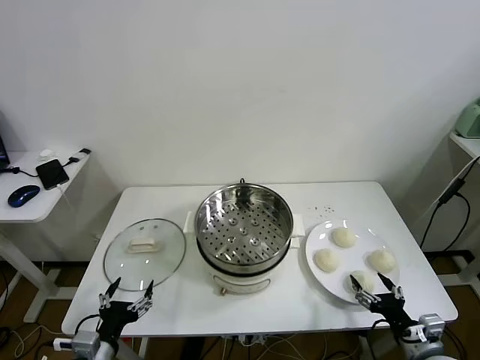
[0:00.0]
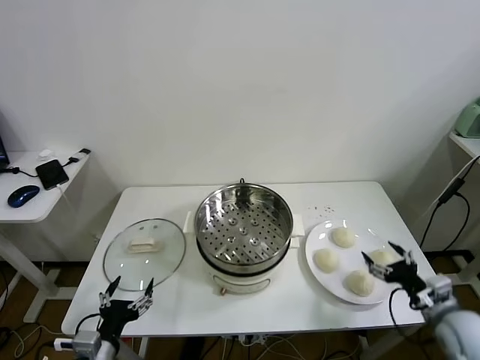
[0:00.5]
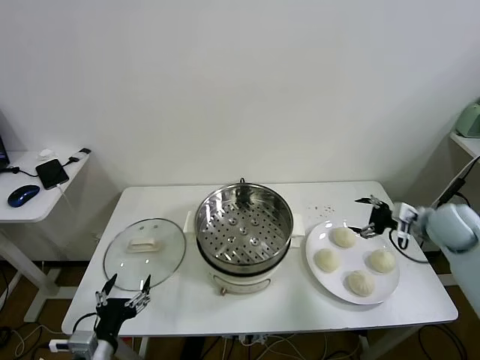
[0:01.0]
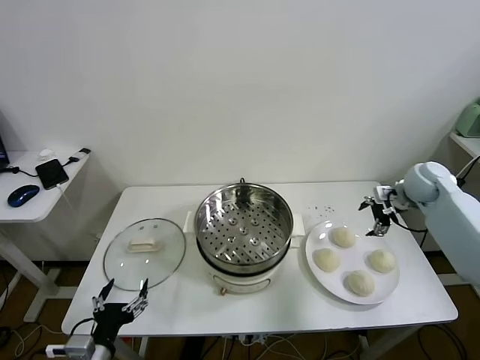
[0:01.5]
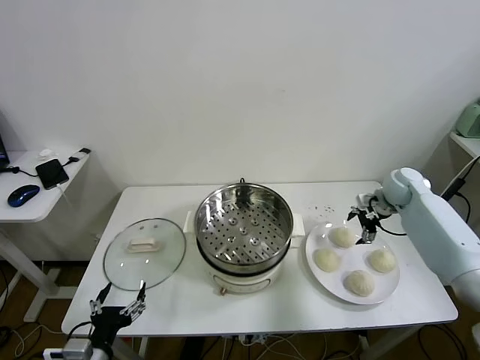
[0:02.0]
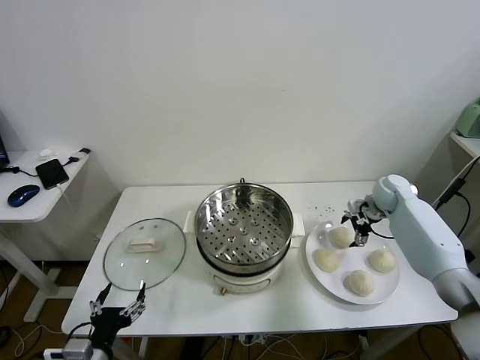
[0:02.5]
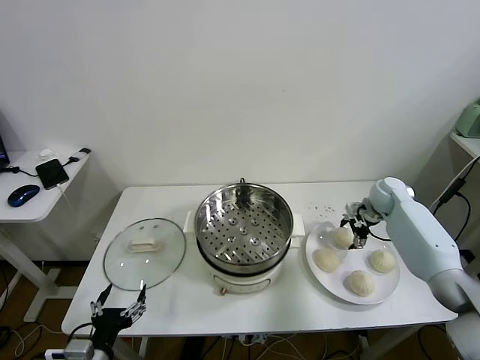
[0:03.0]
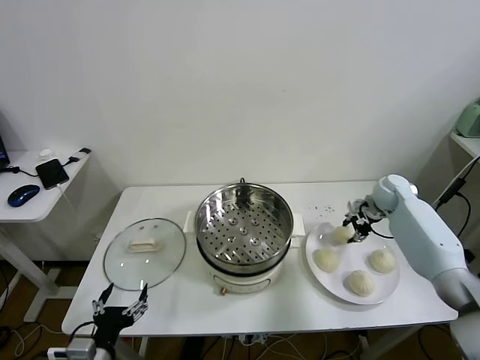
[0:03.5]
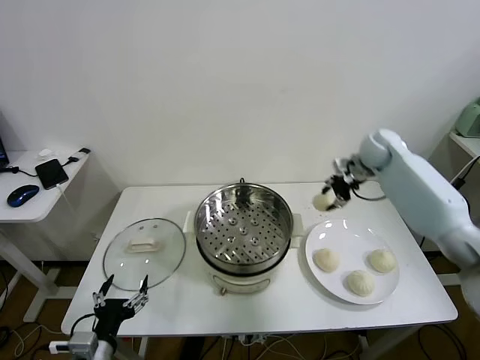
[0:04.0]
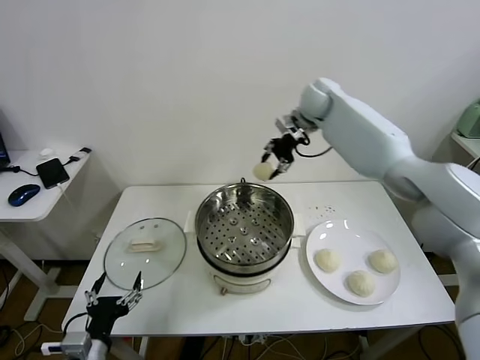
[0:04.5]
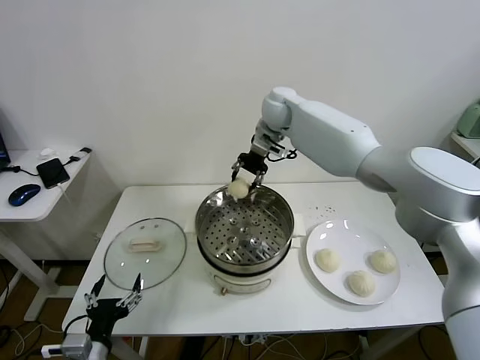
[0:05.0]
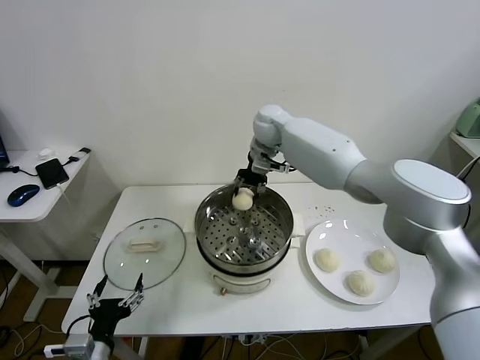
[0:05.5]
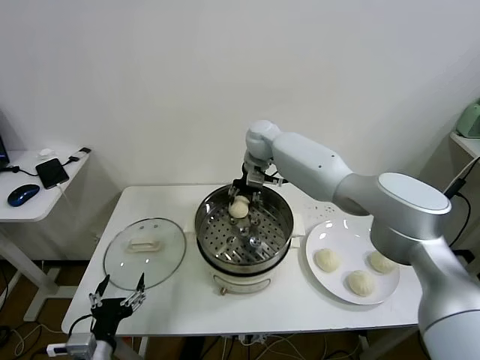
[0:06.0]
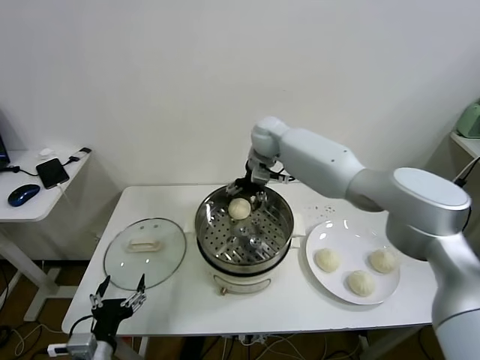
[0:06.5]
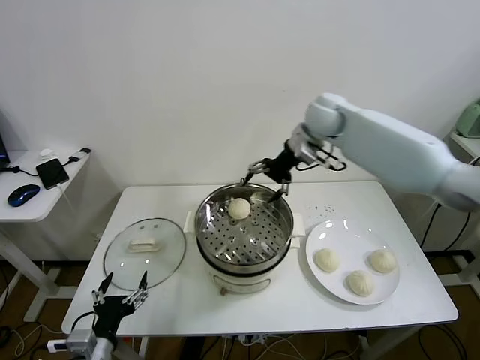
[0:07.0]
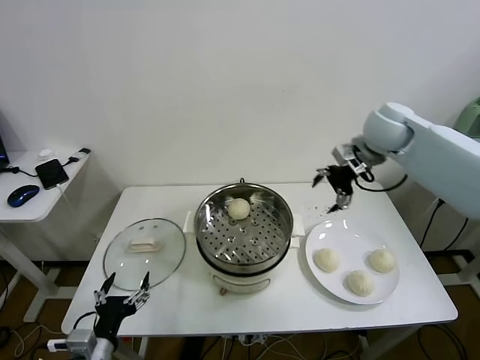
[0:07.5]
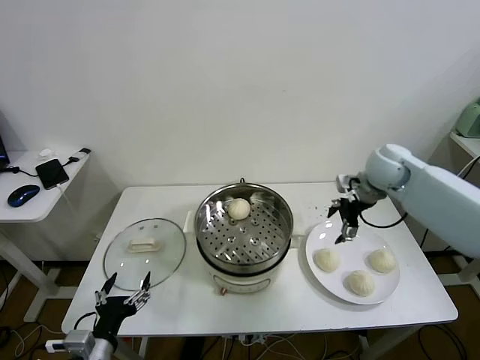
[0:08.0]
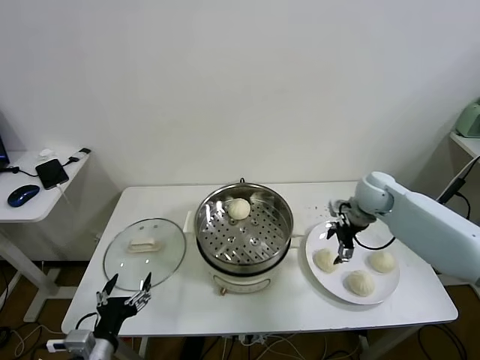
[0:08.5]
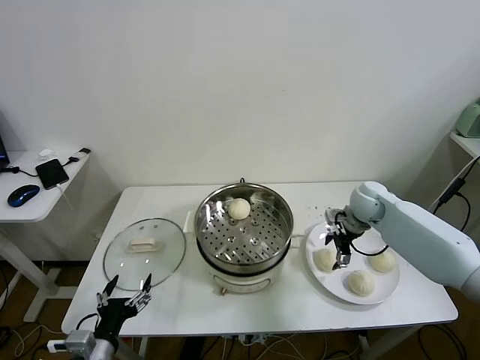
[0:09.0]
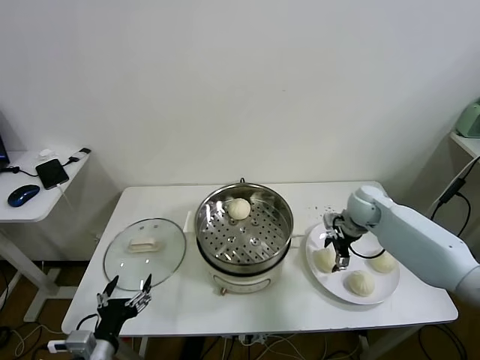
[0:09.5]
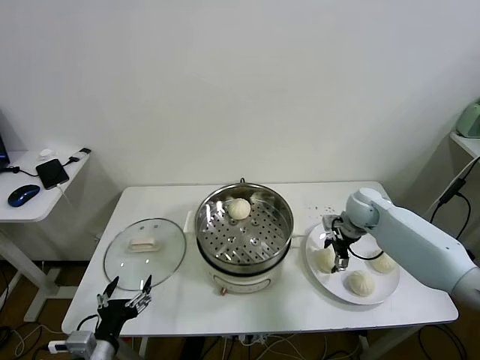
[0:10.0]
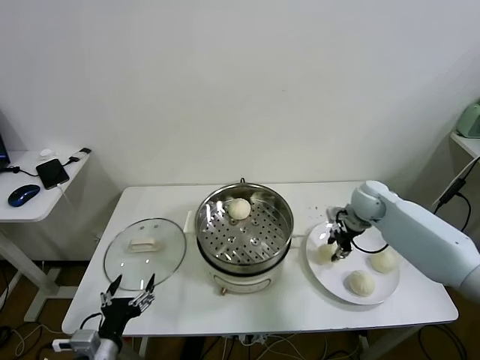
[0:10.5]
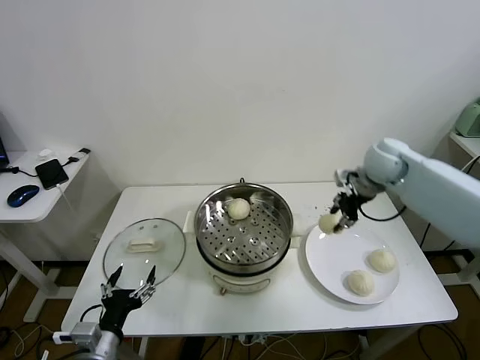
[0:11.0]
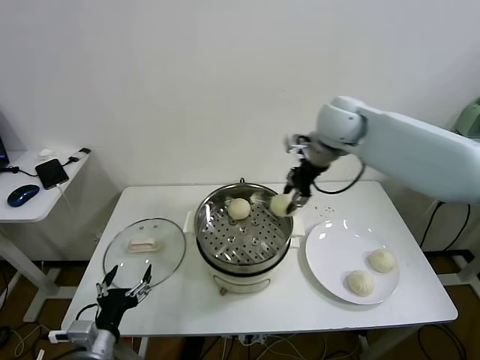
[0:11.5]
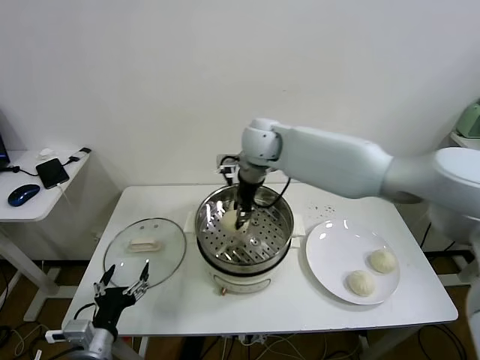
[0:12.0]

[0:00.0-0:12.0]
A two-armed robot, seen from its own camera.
Task of the whole recording: take steamed baozi put them in steamer.
Step, 0.0 to 3.0 s: Grasp the baozi in the plate with right gripper.
Step, 3.5 to 6.0 s: Place the baozi on the steamer with right gripper.
Step, 6.5 to 10.0 s: Grasp the baozi in the plate with right gripper.
2.0 to 4.0 s: The right gripper shifts approximately 25 cm upward, to the left and forward, and closes up.
4.0 to 6.0 s: The right gripper shifts some 25 cm to the left, and opens its fingers.
6.0 to 8.0 s: The right gripper shifts roughly 25 cm to the right.
8.0 to 10.0 s: The right gripper goes about 10 cm downward, and closes.
10.0 to 12.0 s: The right gripper is displaced to the left and upward by some 35 cm, and closes.

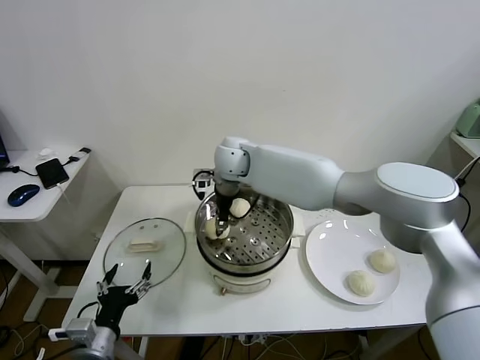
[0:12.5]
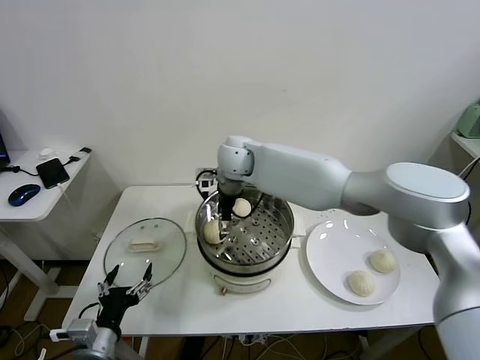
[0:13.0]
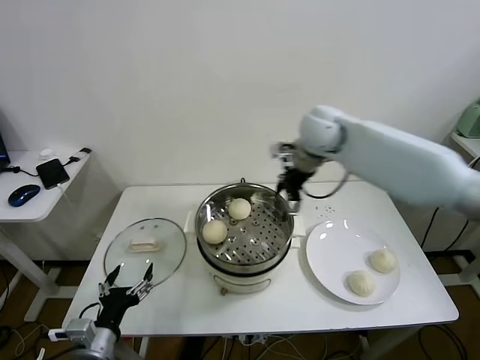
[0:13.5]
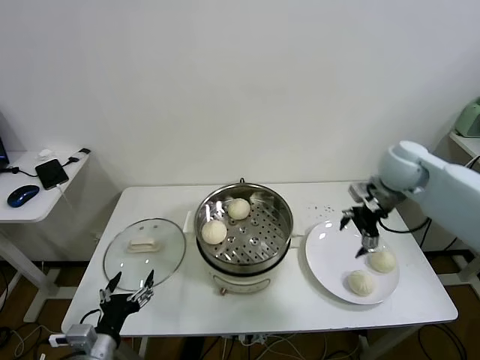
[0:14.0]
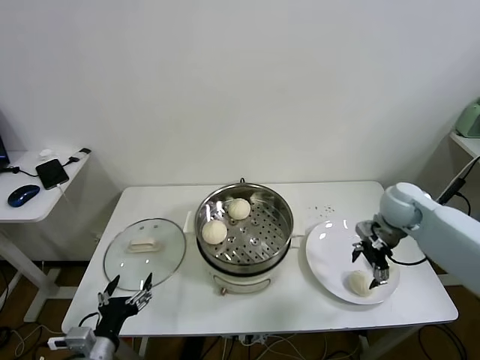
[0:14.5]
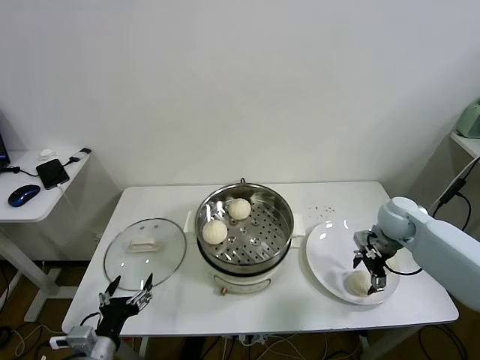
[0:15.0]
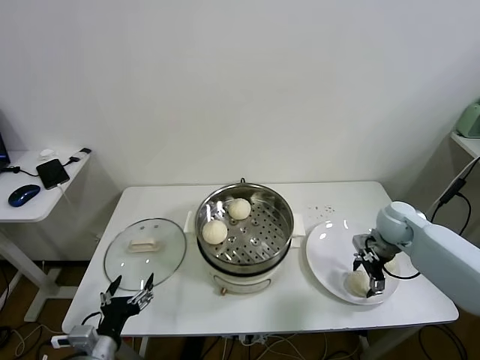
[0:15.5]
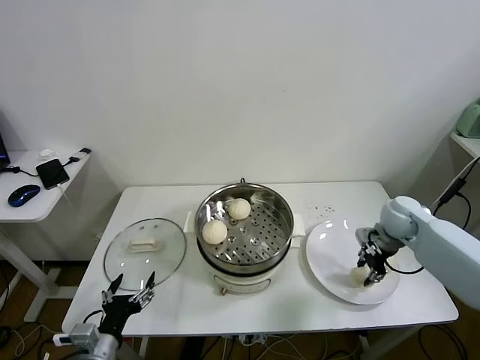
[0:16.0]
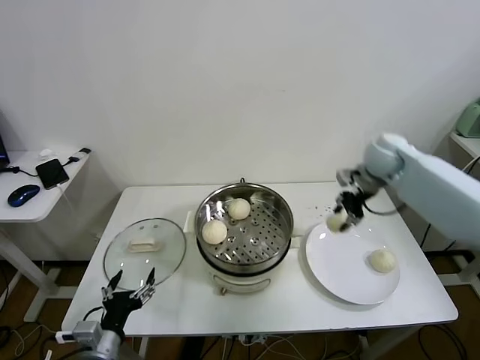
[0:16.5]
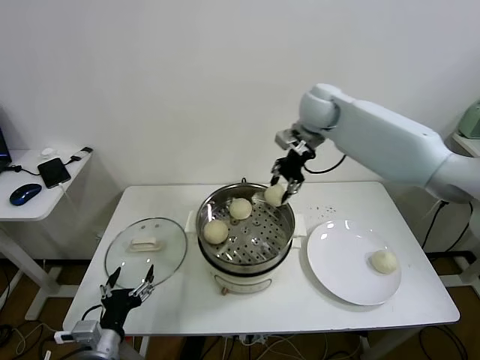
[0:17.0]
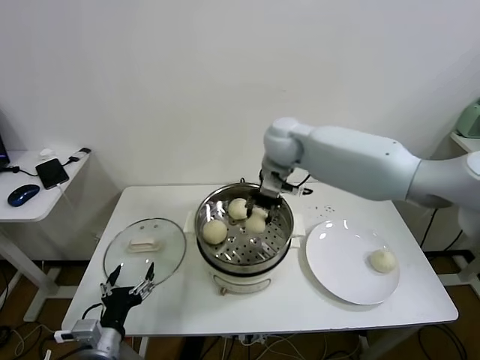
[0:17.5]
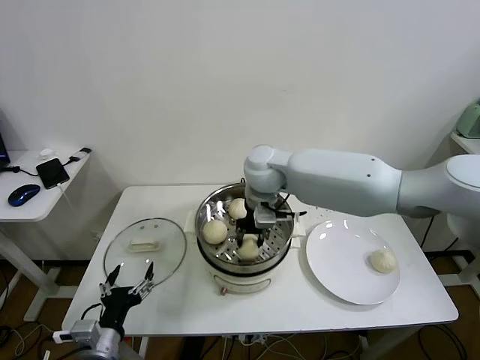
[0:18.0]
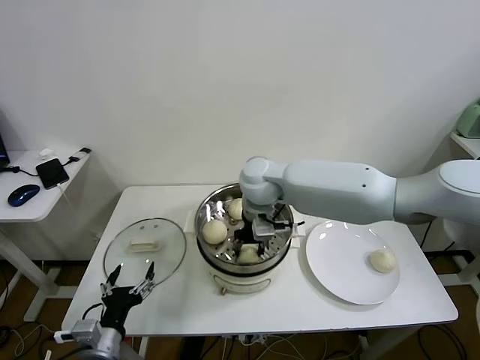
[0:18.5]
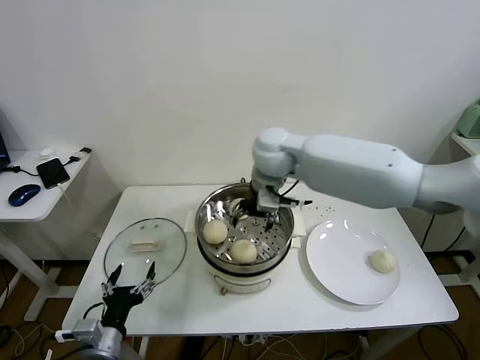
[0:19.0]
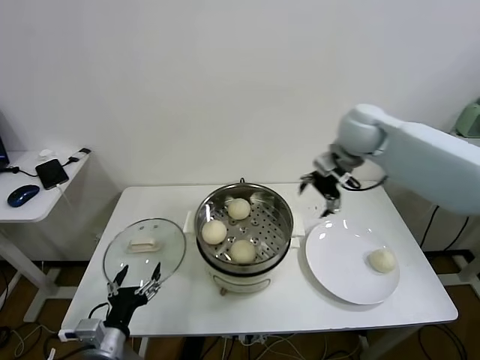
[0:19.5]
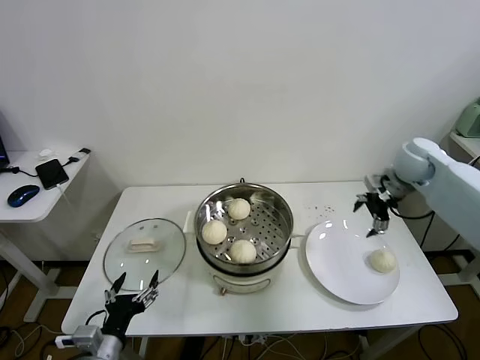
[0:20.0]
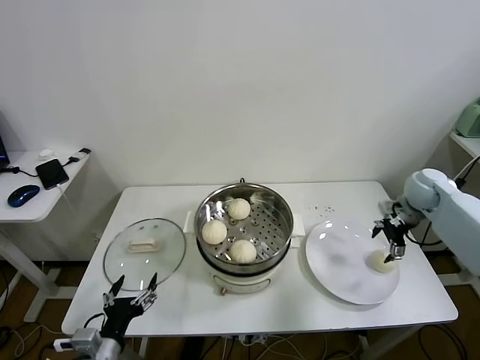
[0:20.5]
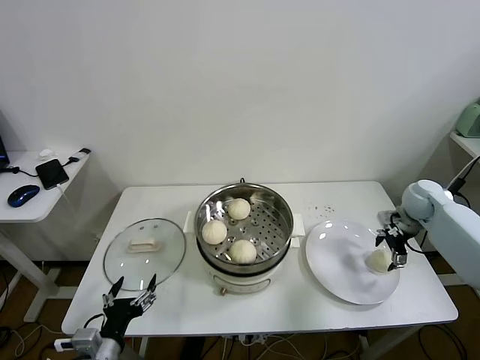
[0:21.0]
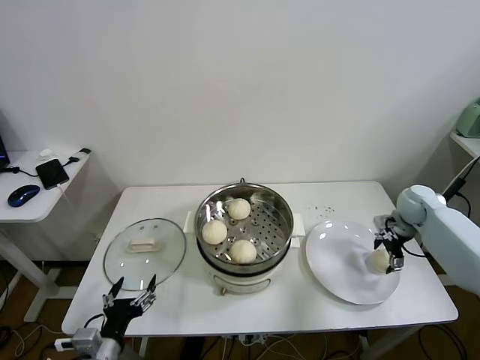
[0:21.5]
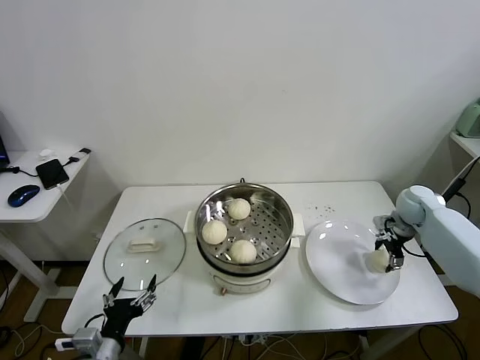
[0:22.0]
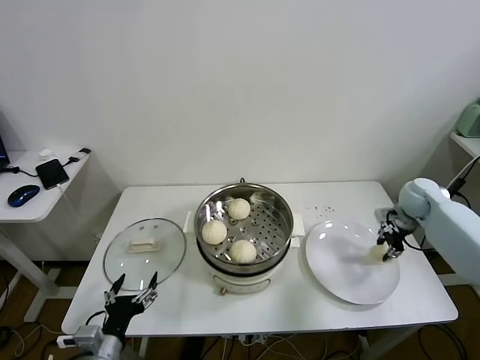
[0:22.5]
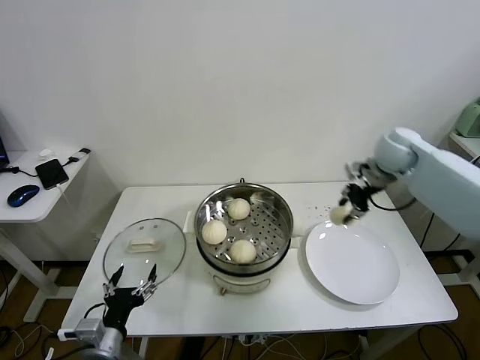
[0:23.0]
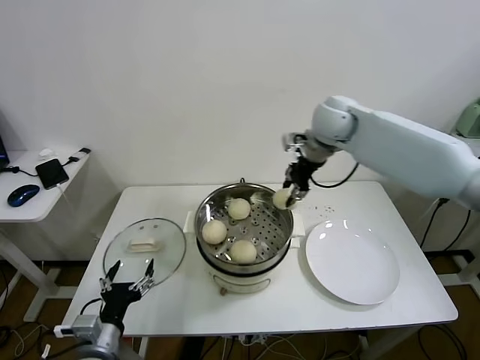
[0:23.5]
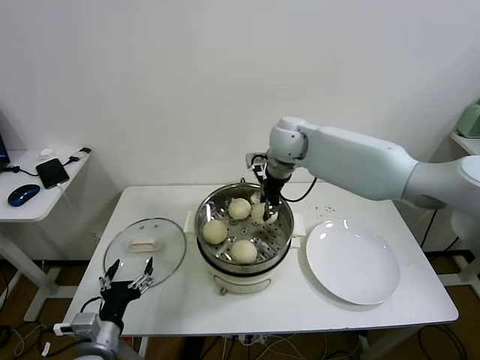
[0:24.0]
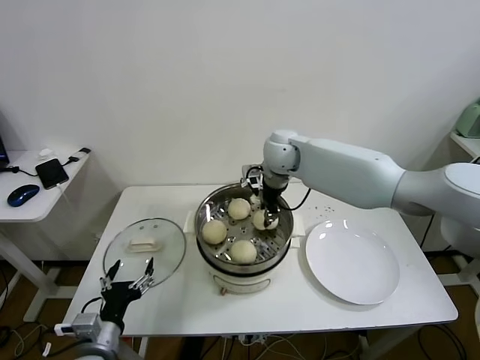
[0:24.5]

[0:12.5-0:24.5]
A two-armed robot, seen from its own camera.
Task of the whole recording: take steamed baozi put them in steamer.
Step, 13.0 to 15.5 s: Grasp the baozi in the plate with right gripper.
Step, 16.0 to 18.5 s: Place the baozi on the steamer with right gripper.
Step, 19.0 to 22.0 s: Grasp the baozi in the plate with right gripper.
12.5 to 14.5 s: The right gripper goes roughly 40 cm to the right, and opens.
14.5 to 16.5 s: The right gripper heads upward, forward and to the left, covering approximately 20 cm, and closes up.
16.5 to 18.5 s: The right gripper travels to the left by approximately 25 cm, and opens up.
18.5 to 20.5 s: The right gripper shifts some 40 cm to the right, and opens its fingers.
20.5 to 22.5 s: The right gripper closes its fingers.
22.5 to 24.5 s: The right gripper heads to the left, covering approximately 35 cm.

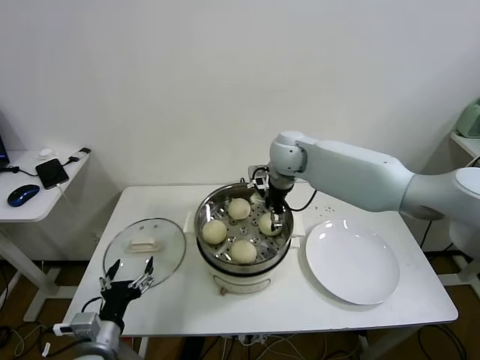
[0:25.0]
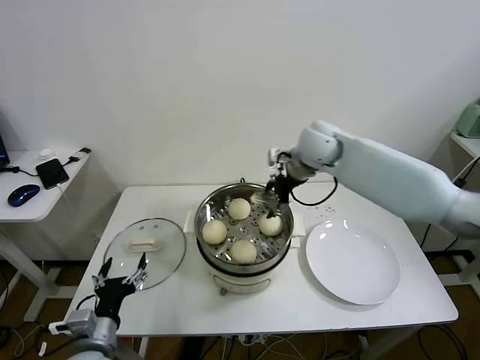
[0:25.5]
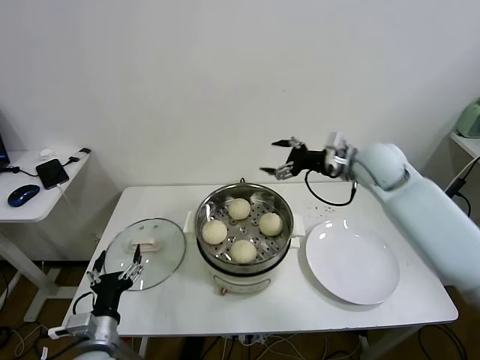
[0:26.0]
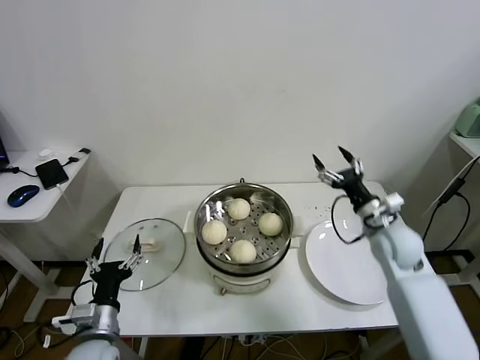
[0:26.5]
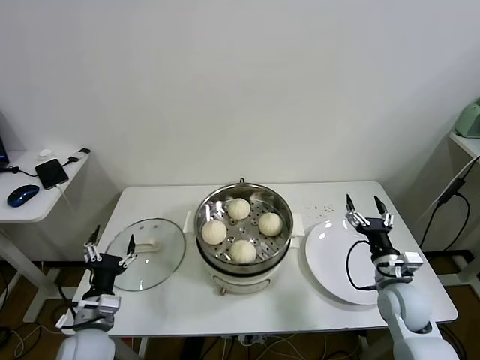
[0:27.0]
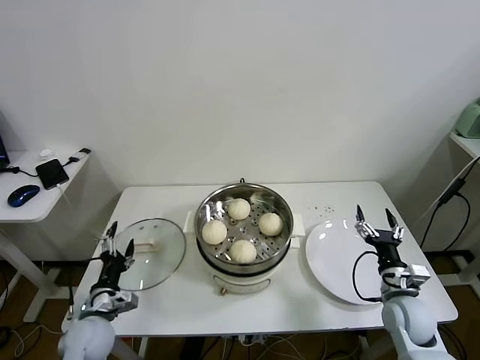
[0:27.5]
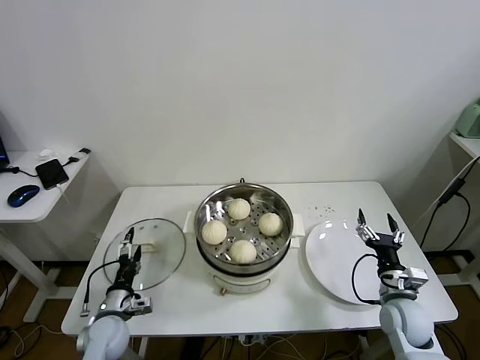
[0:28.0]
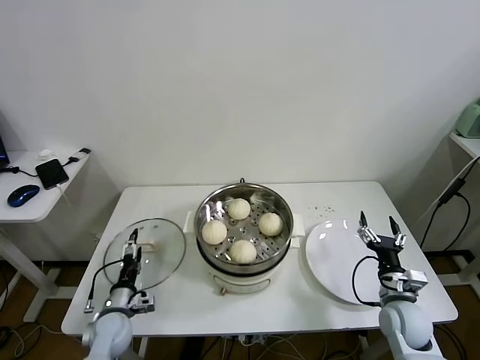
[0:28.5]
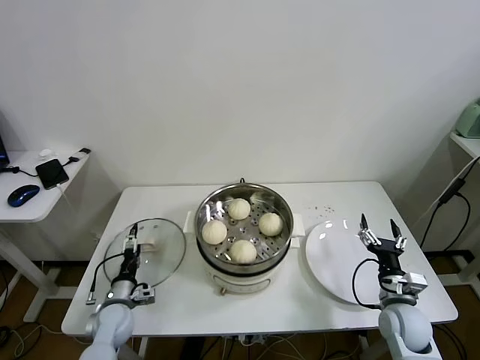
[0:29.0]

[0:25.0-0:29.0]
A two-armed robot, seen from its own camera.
Task of the whole recording: take steamed baozi put them in steamer.
25.0 to 27.0 s: The right gripper heads backward, to the right and downward, covering about 40 cm. The left gripper changes place by some 5 cm.
27.0 to 29.0 s: The left gripper heads downward and forward, covering approximately 15 cm.
